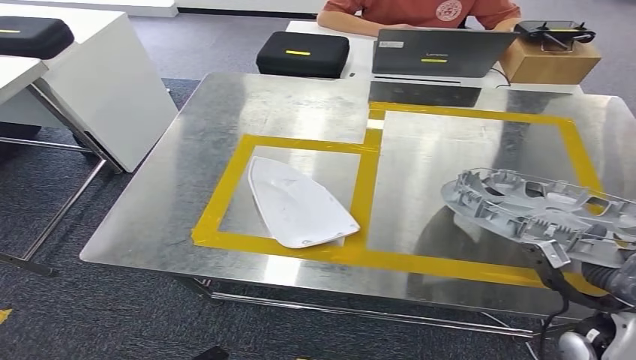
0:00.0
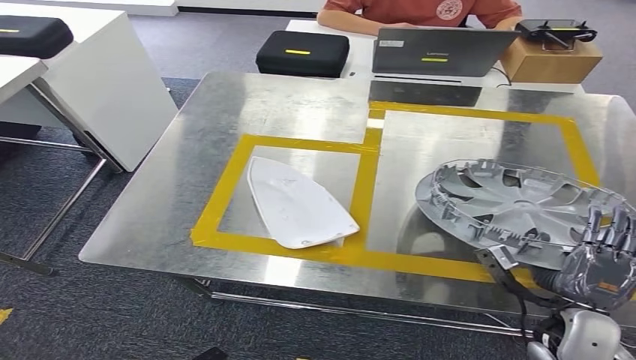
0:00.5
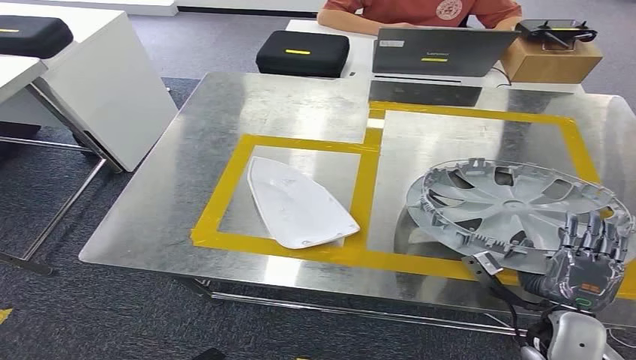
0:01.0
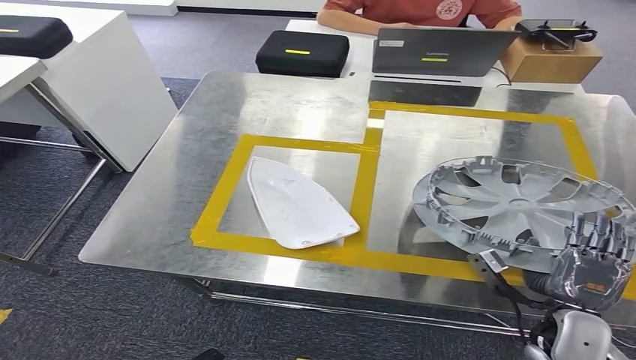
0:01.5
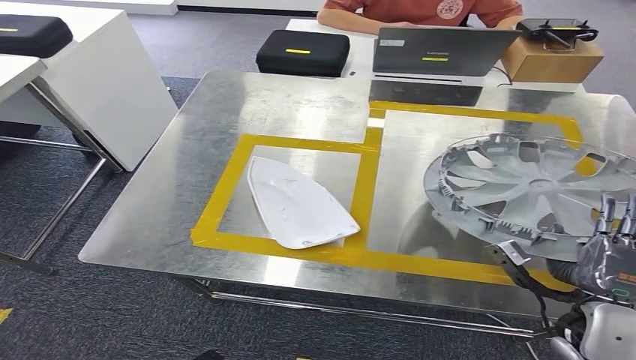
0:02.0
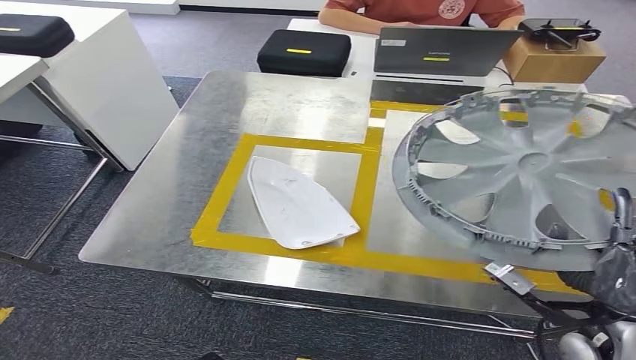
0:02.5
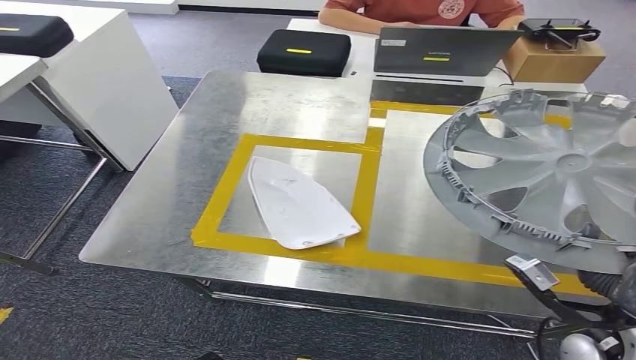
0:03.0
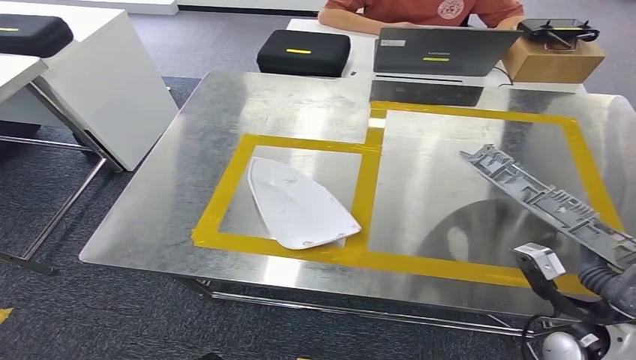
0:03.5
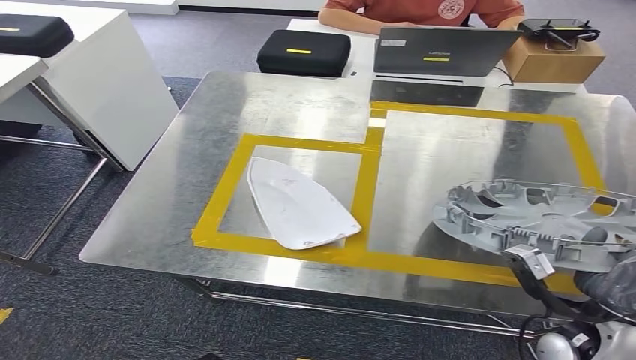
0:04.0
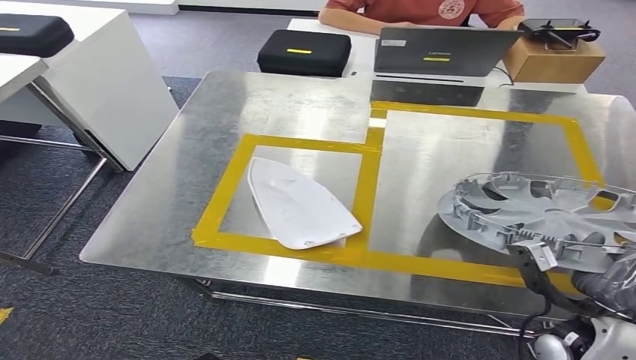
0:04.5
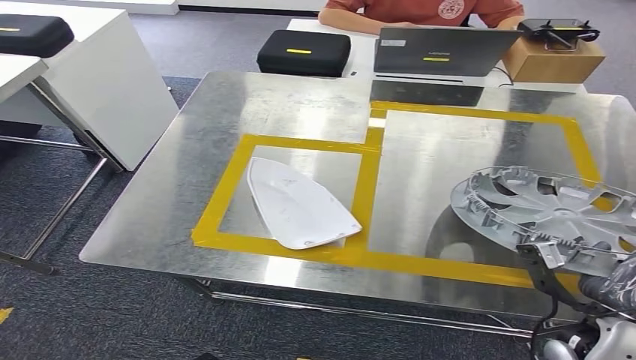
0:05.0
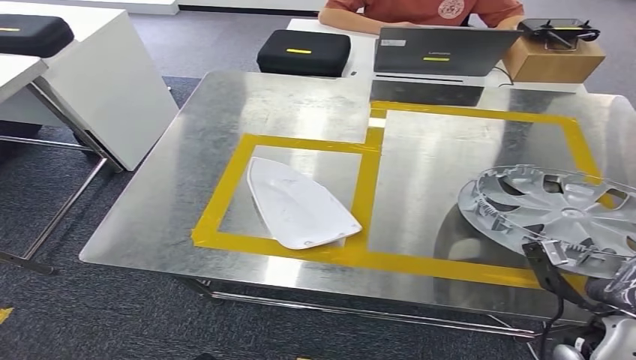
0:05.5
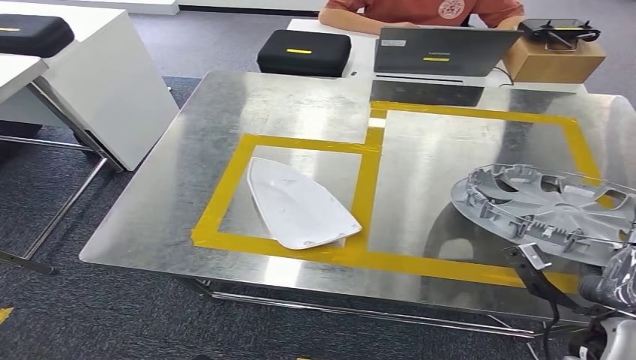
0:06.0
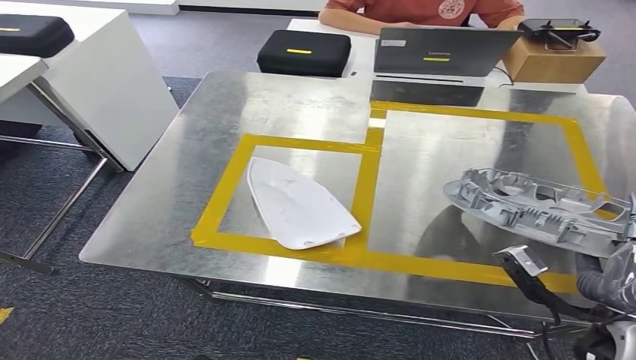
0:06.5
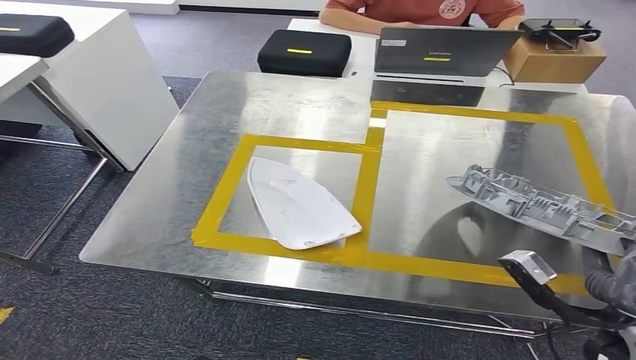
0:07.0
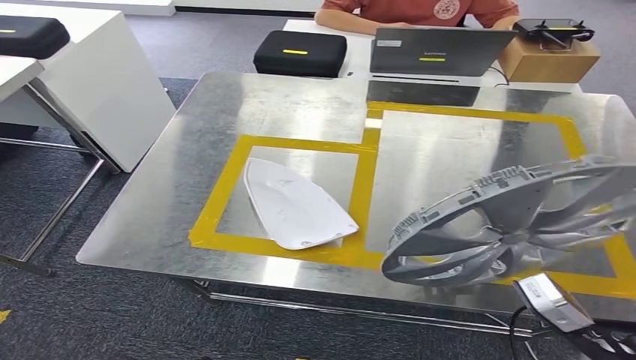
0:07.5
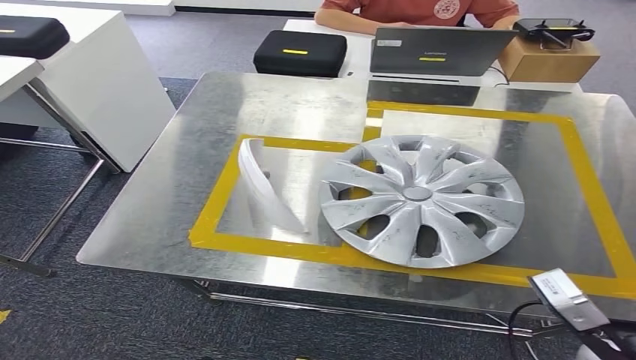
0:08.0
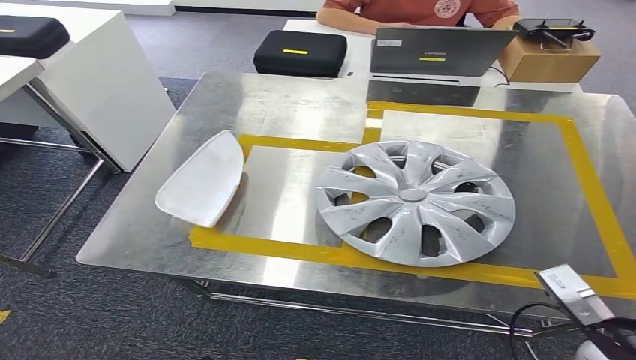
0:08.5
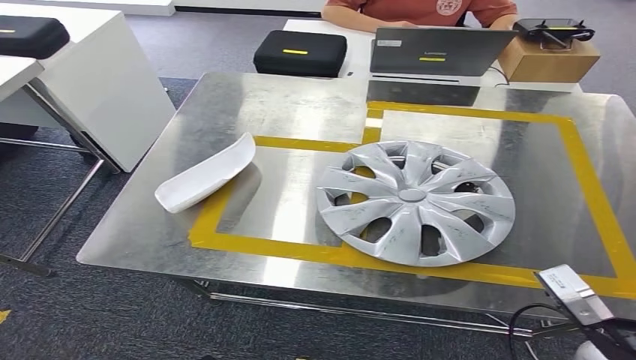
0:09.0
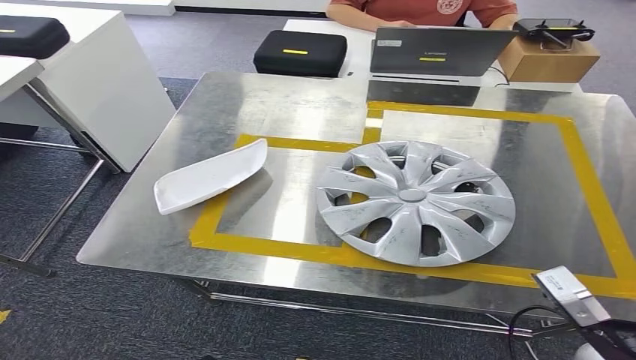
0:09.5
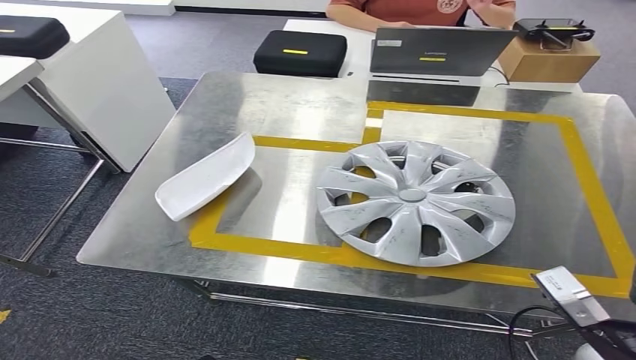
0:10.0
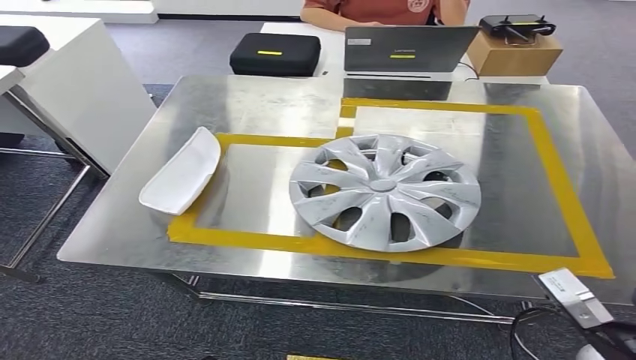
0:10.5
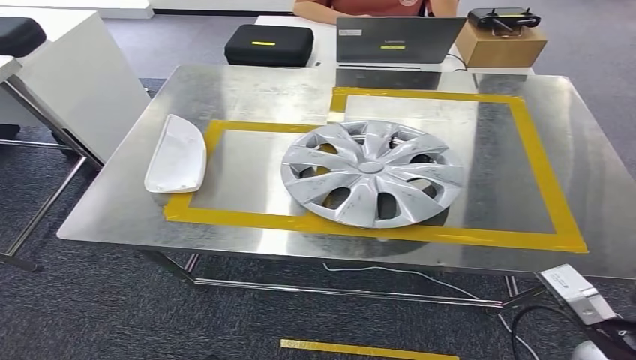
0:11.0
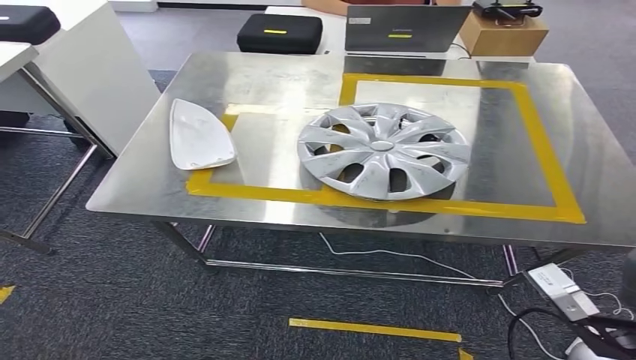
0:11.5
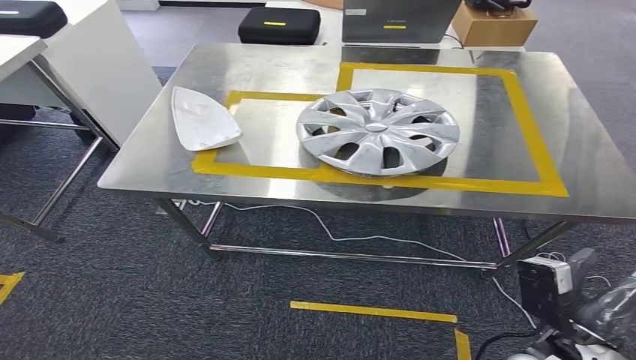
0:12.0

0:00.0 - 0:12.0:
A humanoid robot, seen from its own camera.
Step, 0:00.0 - 0:08.0: Insert the small component into the corresponding slot on the workbench.
0:02.0 - 0:04.0: The hands make only small movements.
0:08.0 - 0:10.0: Both hands stay put.

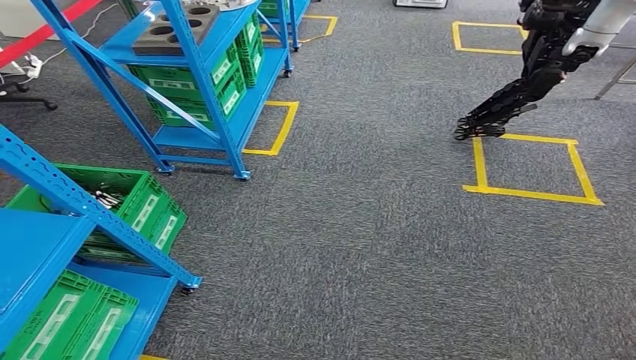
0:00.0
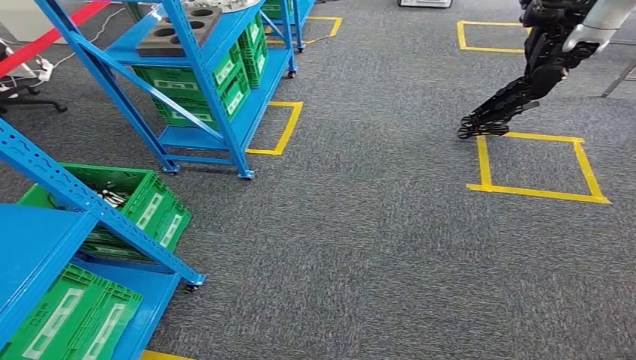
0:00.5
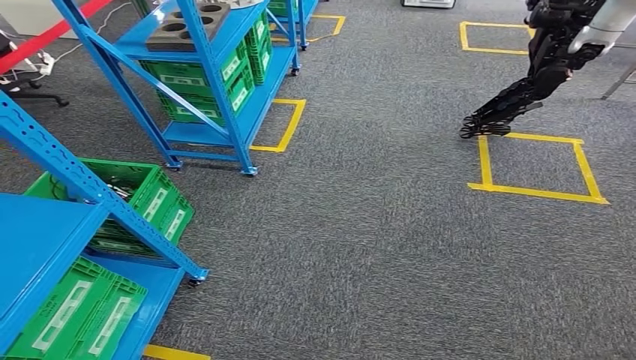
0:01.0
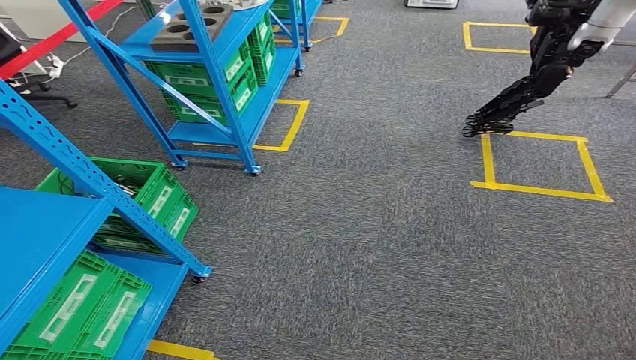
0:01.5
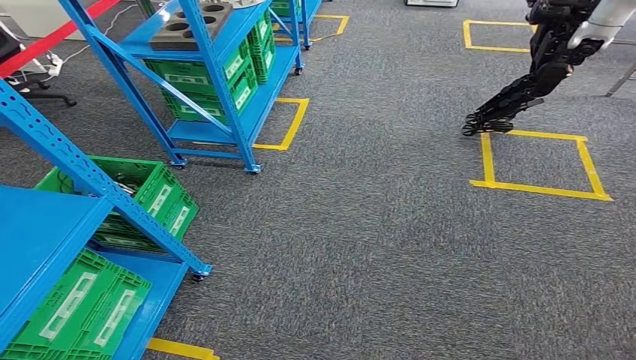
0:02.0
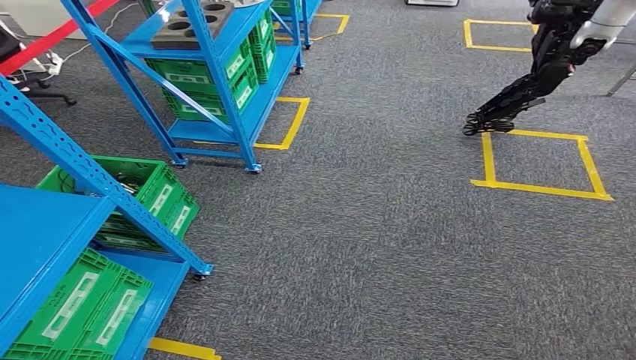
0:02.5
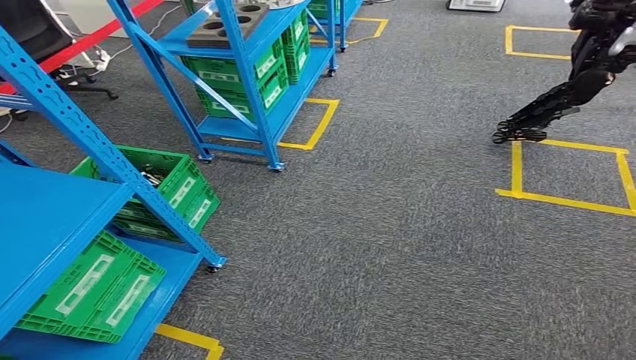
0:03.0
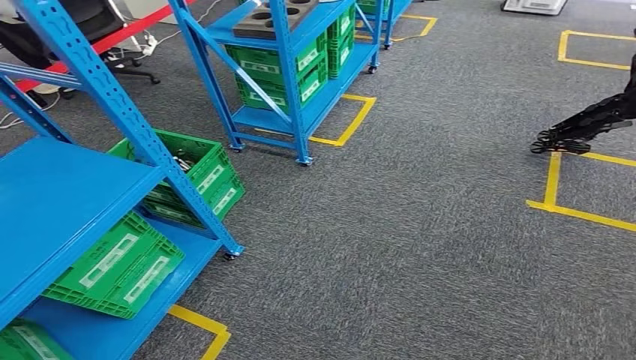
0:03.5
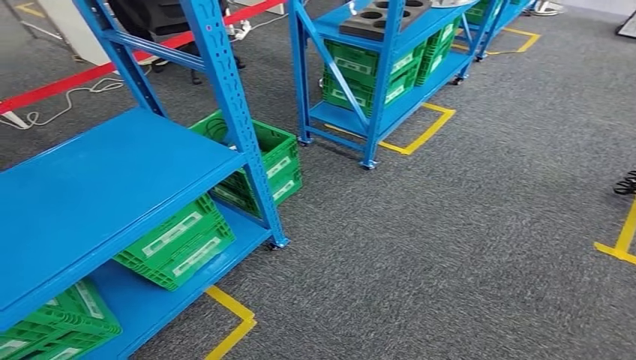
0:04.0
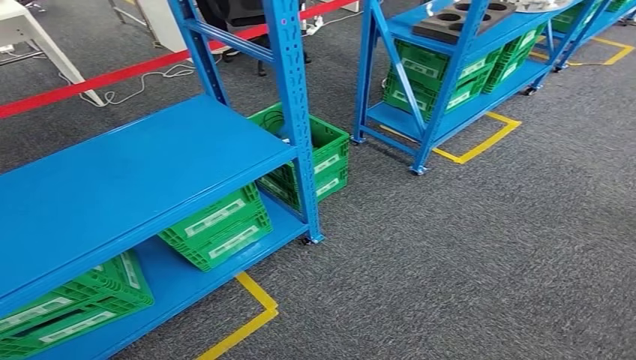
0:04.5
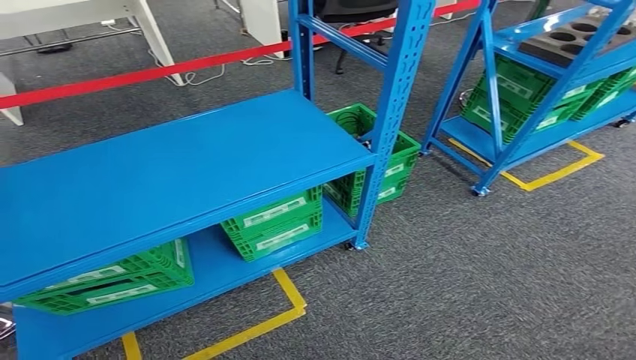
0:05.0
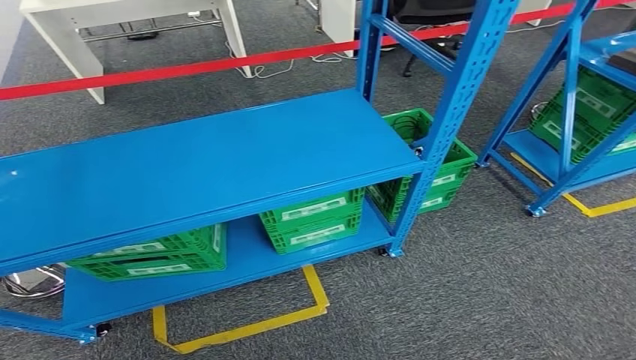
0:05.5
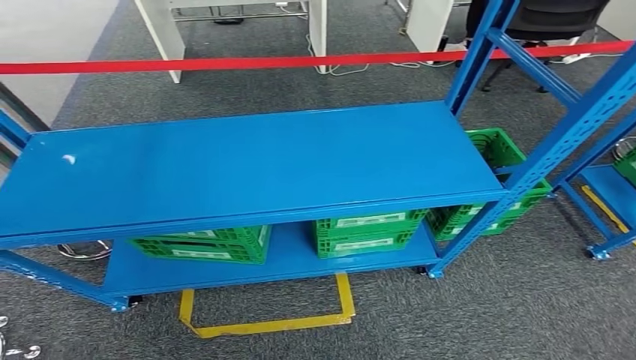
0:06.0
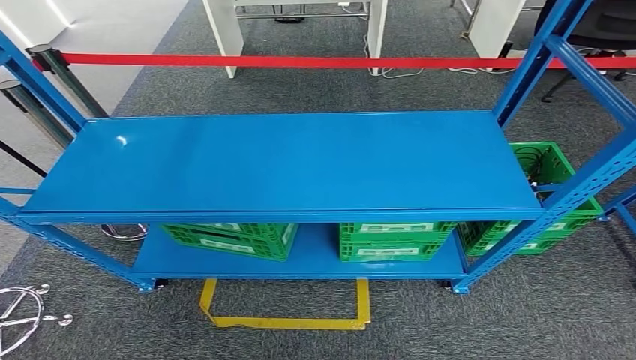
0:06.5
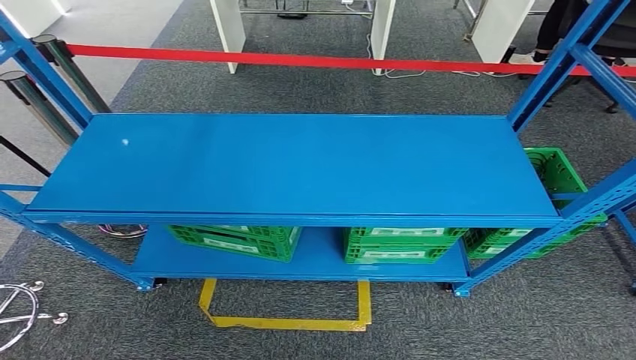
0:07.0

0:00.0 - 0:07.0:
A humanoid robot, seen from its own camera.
Step, 0:00.0 - 0:07.0: Move to the initial position at the workbench.
